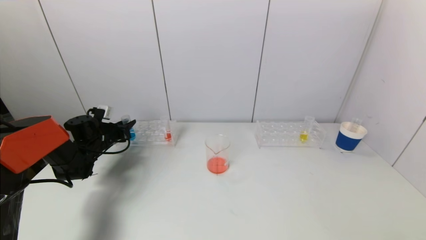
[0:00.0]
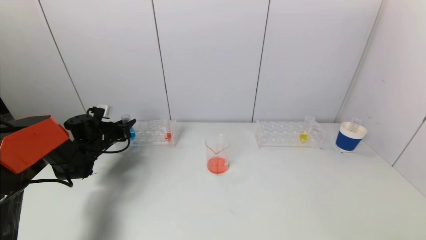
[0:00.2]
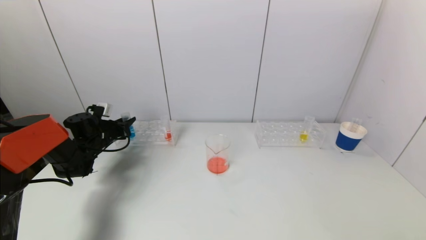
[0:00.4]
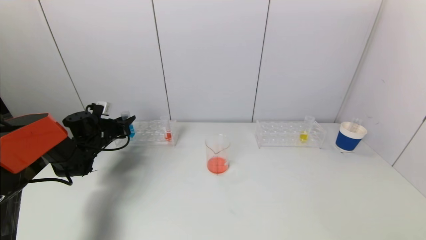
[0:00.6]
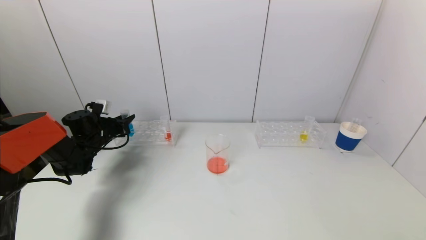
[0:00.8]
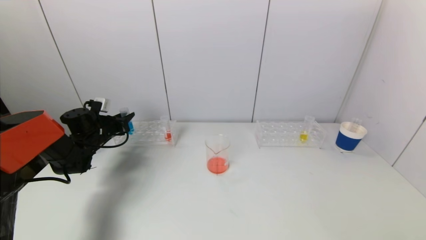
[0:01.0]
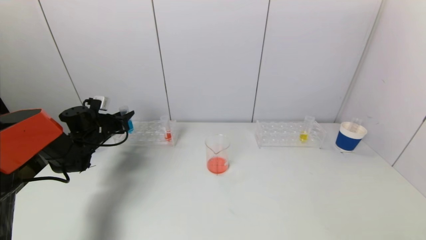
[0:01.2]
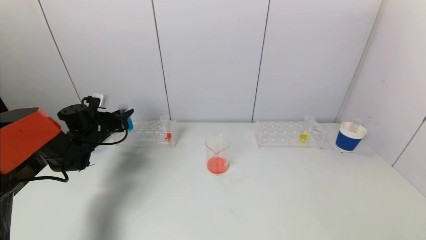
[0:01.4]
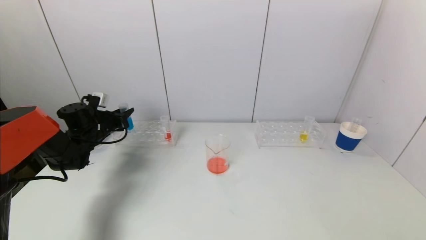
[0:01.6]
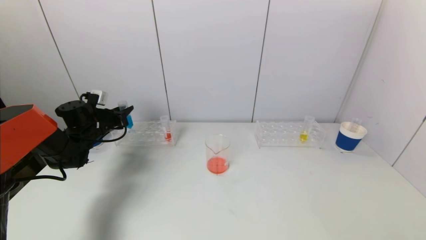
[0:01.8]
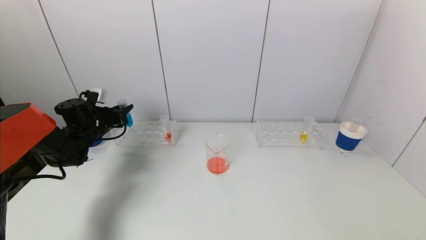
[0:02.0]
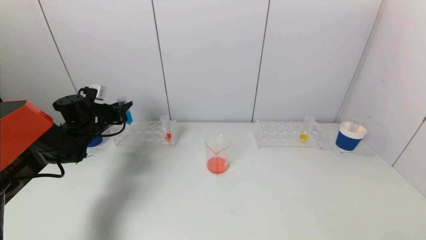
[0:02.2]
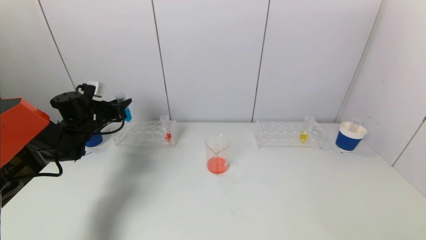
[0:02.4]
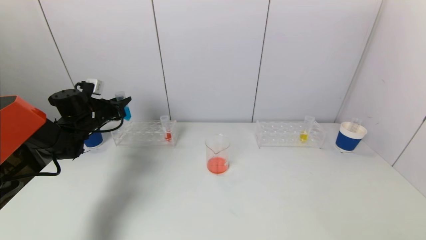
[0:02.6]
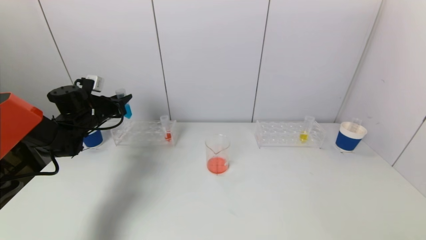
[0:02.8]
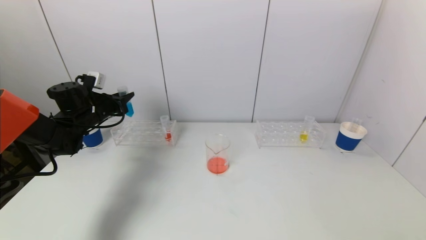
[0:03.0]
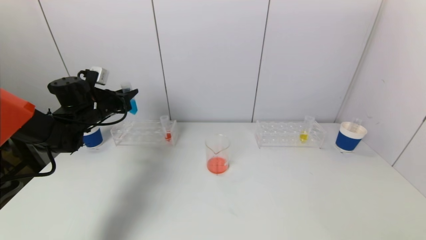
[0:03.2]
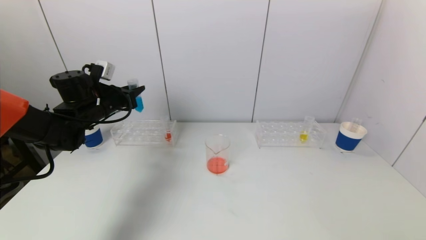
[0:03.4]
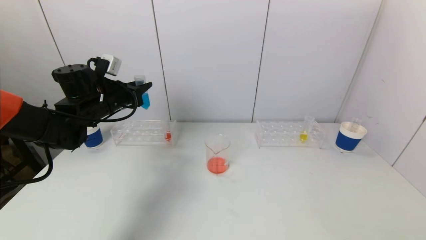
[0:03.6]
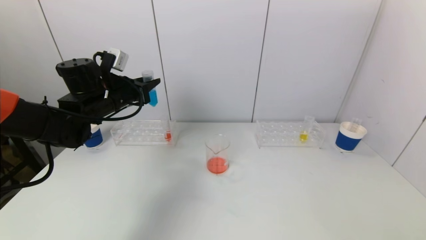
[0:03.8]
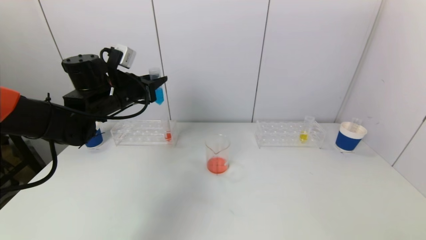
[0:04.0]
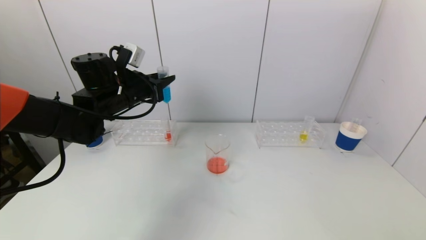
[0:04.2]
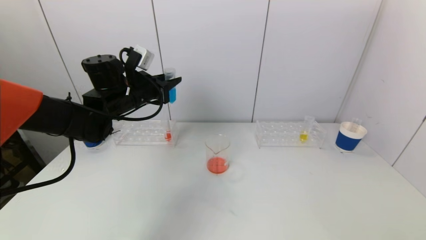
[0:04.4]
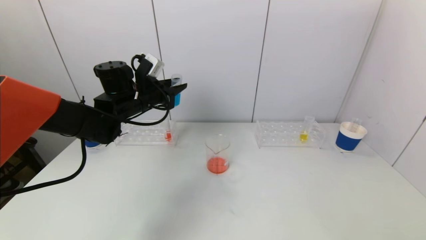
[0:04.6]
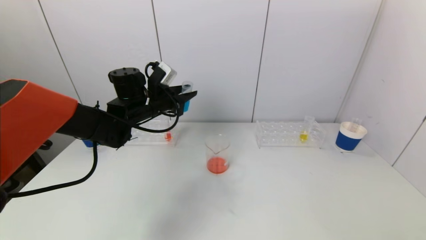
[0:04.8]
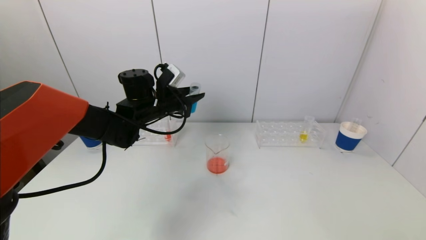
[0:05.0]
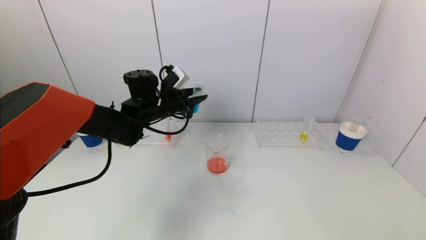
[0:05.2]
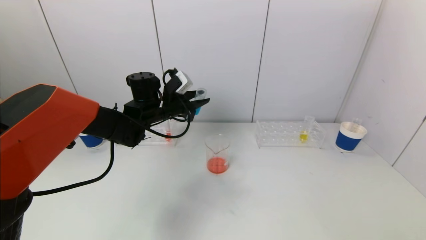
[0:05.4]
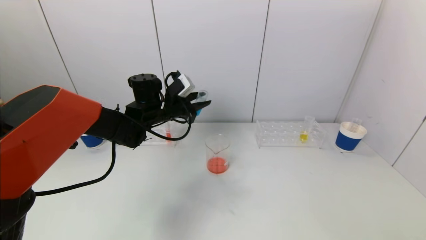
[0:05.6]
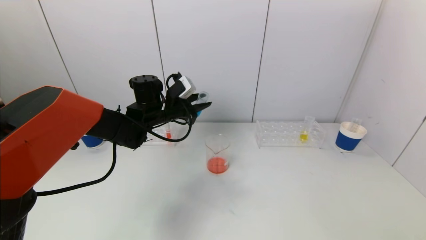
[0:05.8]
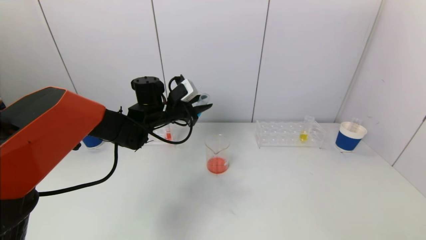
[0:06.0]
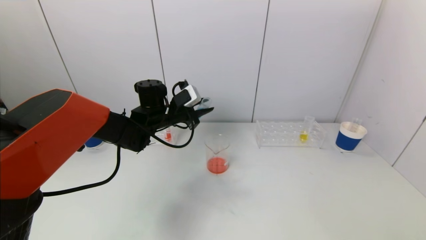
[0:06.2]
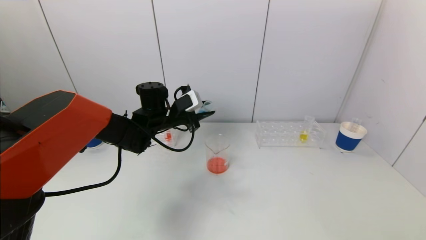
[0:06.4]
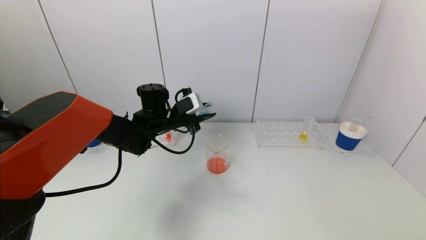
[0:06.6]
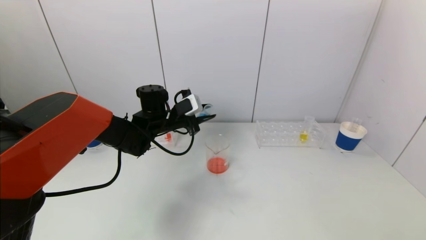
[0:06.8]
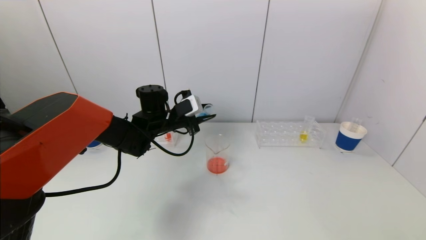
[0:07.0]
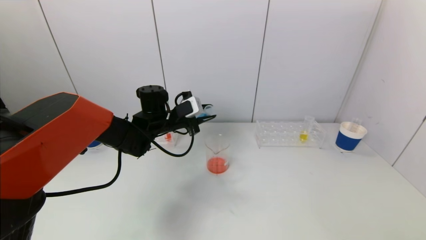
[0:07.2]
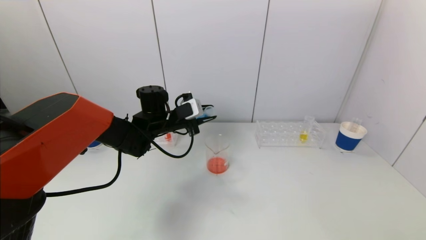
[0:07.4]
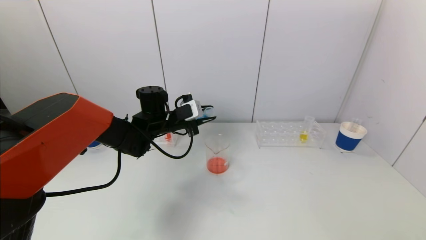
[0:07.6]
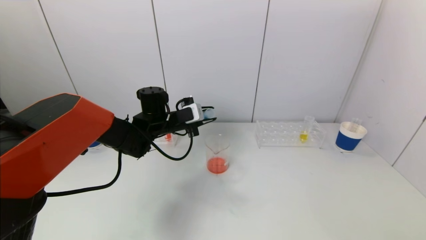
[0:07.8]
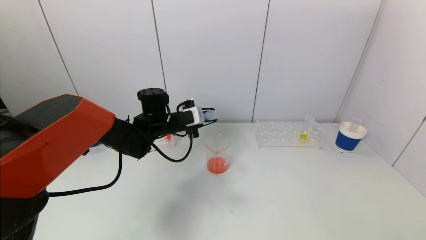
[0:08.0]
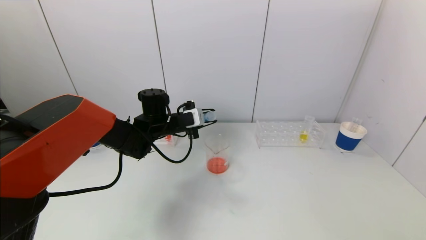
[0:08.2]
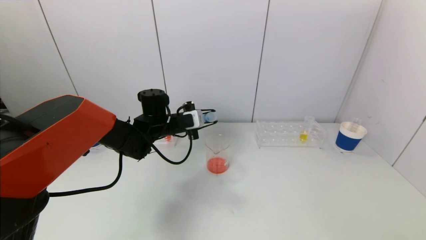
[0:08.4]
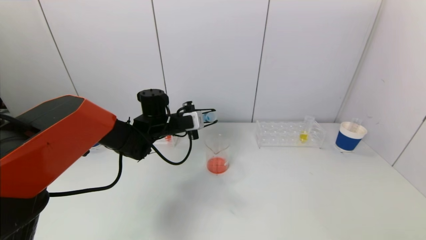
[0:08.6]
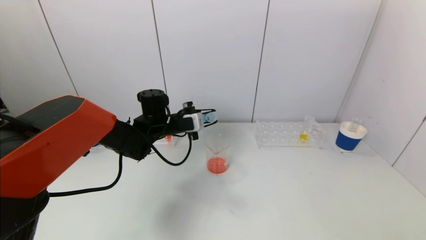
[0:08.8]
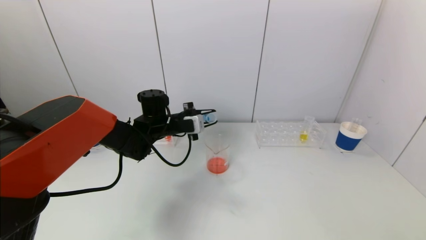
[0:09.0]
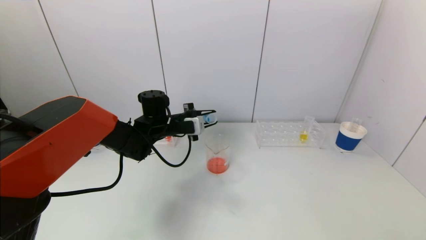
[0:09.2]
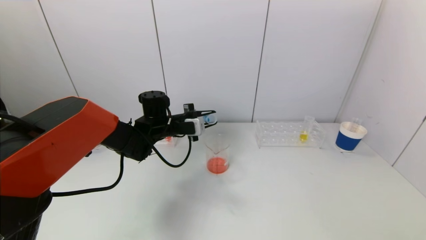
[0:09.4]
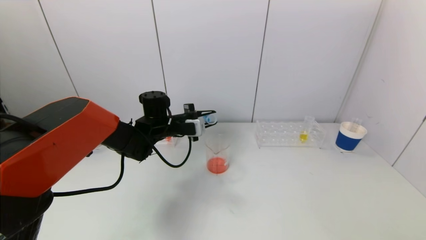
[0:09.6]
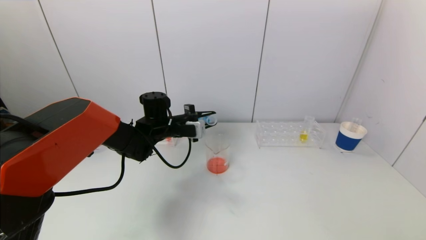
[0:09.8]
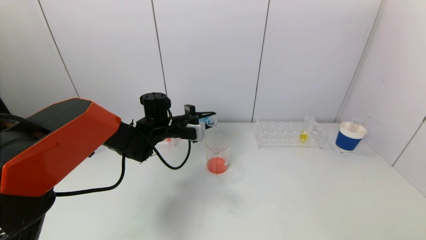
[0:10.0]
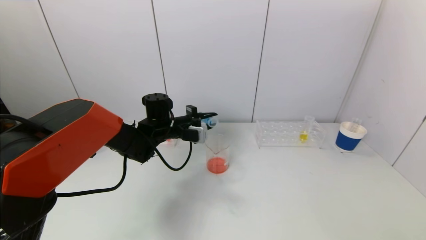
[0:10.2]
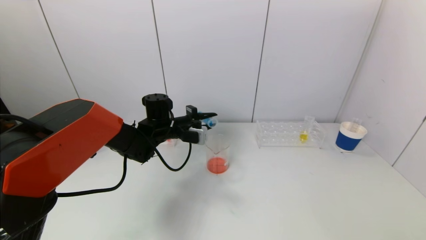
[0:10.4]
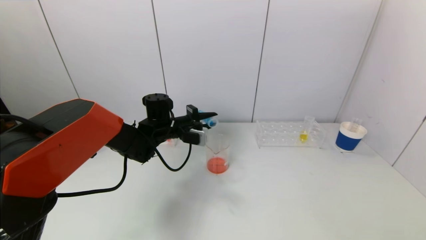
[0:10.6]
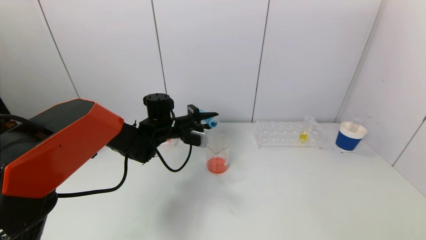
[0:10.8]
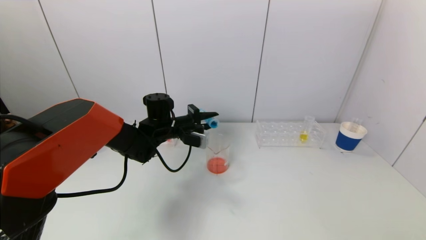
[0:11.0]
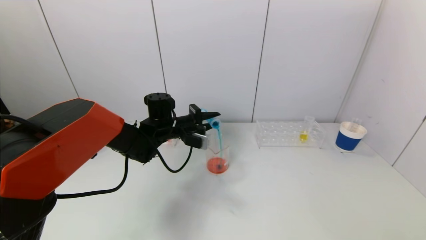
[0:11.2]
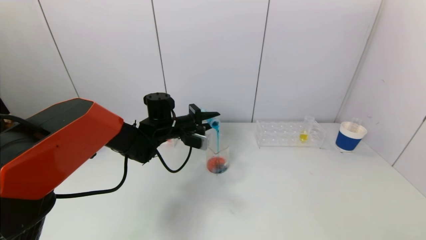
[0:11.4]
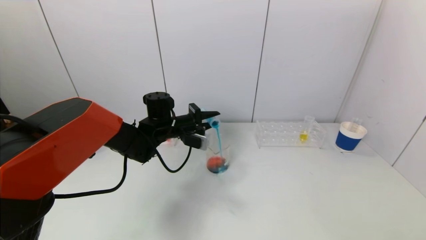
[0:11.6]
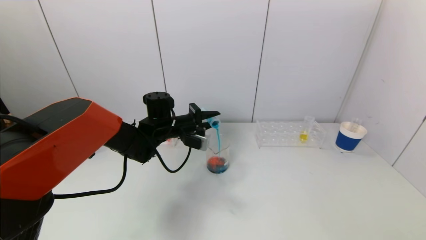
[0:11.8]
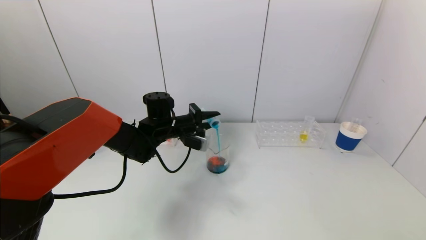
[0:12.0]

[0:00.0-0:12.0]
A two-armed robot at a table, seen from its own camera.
Task of the whole recording: pick up a test tube with pigment on left test tube rack and a test tube with pigment on right test tube rack by grippers and pour them into the beaker.
0:00.0 to 0:01.6: The grippers stay close to where they were, moving slightly.
0:01.6 to 0:03.0: The left gripper moves upward, approximately 5 cm.
0:03.0 to 0:04.4: The left gripper moves to the right and upward, approximately 15 cm.
0:04.4 to 0:06.0: The left gripper travels to the right and downward by some 10 cm.
0:06.0 to 0:07.6: The grippers stay close to where they were, moving slightly.
0:07.6 to 0:09.0: The grippers stay close to where they were, moving slightly.
0:09.0 to 0:10.4: The grippers move only a little.
0:10.4 to 0:12.0: There are only small adjustments of the grippers.

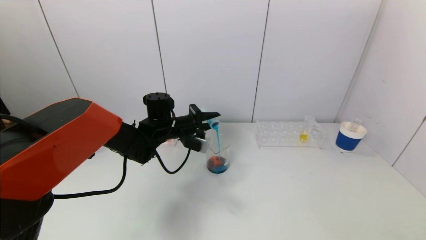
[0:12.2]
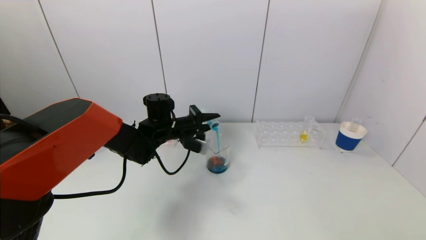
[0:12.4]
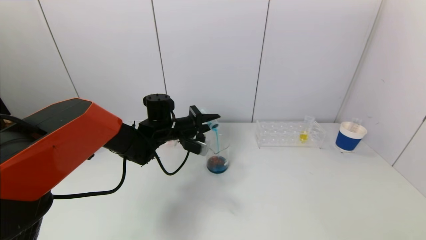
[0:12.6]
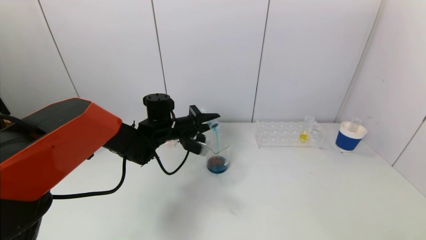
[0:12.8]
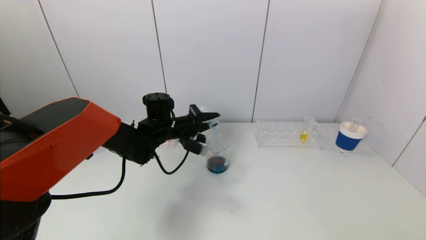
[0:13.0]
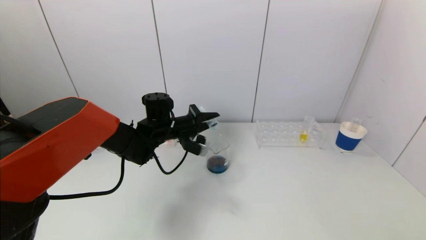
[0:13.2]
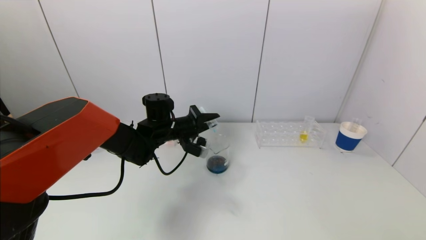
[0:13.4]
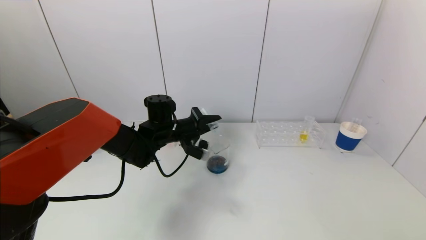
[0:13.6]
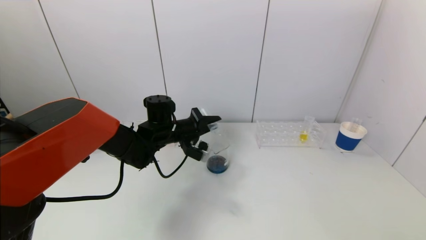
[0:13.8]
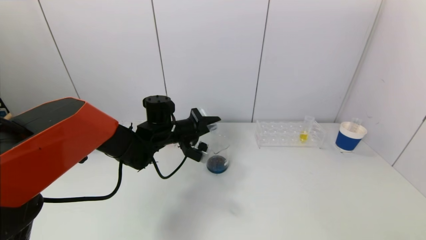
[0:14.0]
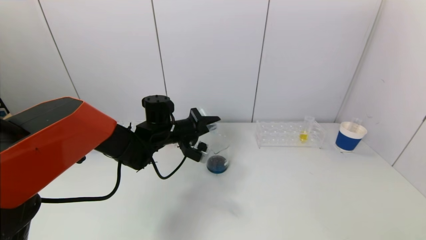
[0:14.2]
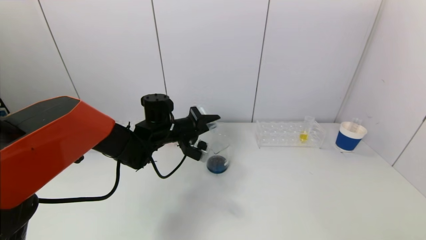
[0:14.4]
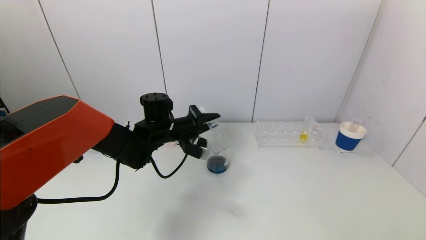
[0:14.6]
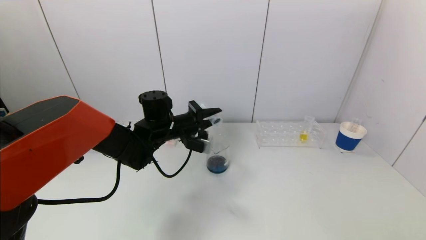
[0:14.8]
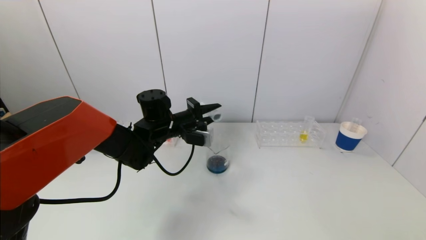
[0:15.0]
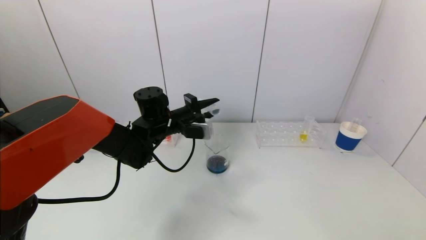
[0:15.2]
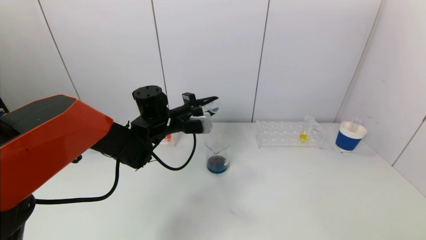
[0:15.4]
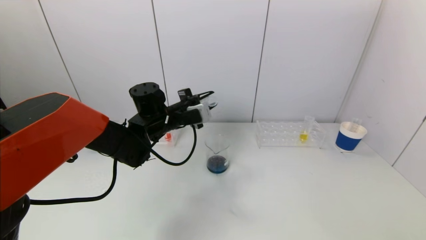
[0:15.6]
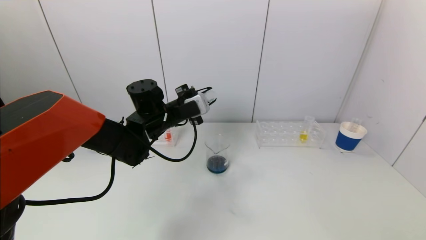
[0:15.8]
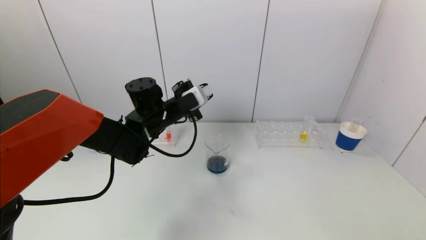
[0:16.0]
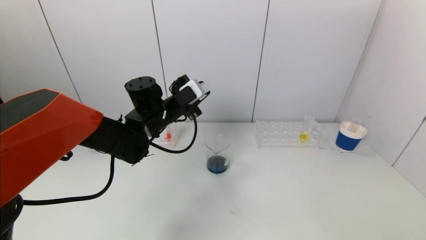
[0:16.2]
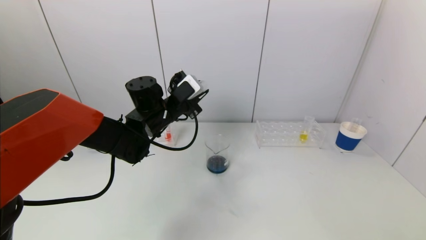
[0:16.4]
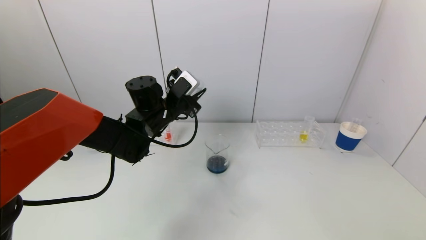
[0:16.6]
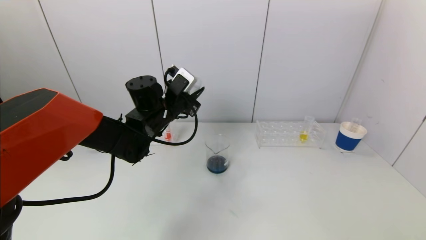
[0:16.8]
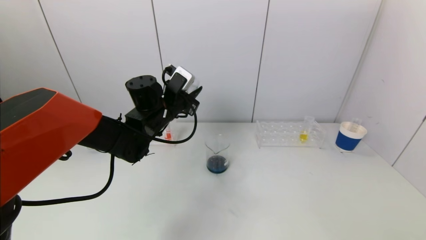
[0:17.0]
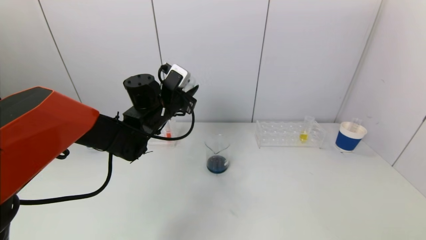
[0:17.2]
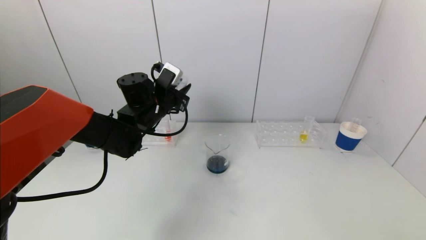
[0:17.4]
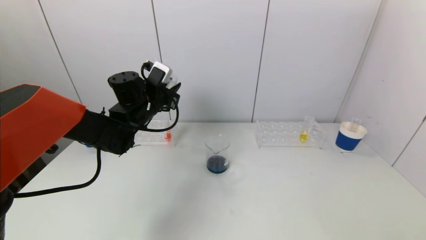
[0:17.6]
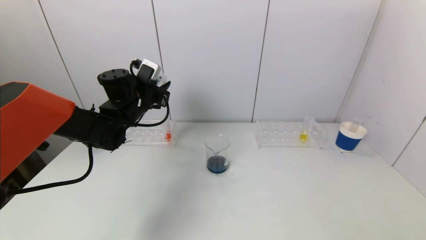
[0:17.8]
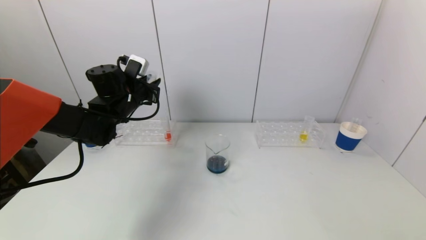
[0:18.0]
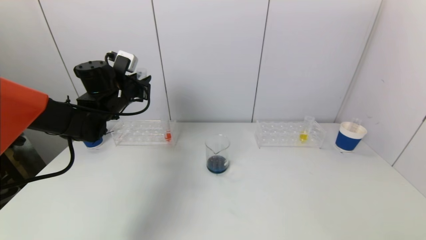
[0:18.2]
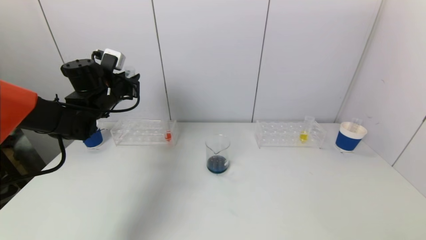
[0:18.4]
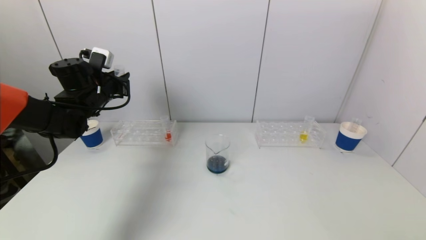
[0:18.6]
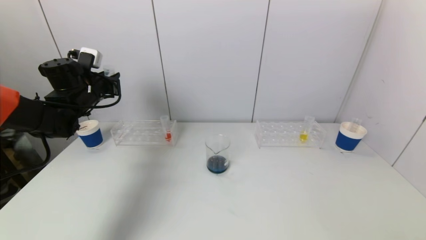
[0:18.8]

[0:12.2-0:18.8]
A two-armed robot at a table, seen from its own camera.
Task of the whole recording: pick up a test tube with pigment on left test tube rack and a test tube with pigment on right test tube rack by grippers and pour them into the beaker.
Step, 0:12.2 to 0:14.6: Pour the blue reagent into the graduated cylinder with the left gripper.
0:12.2 to 0:13.8: The grippers move only a little.
0:17.2 to 0:18.8: The left gripper is displaced to the left by roughly 20 cm.
